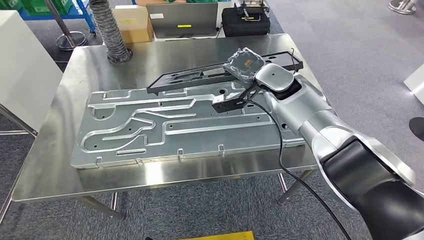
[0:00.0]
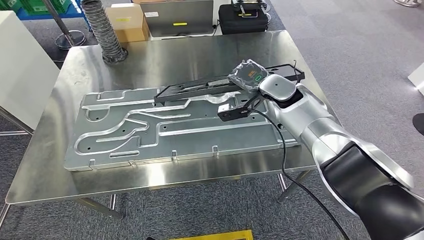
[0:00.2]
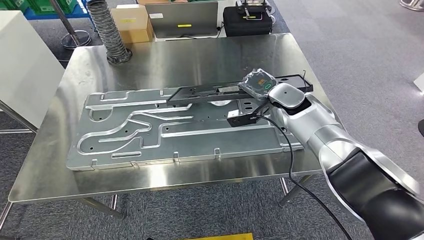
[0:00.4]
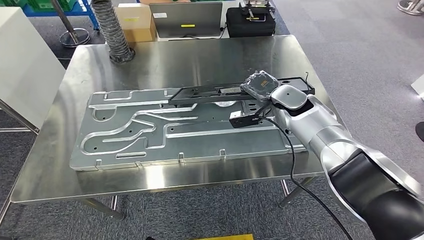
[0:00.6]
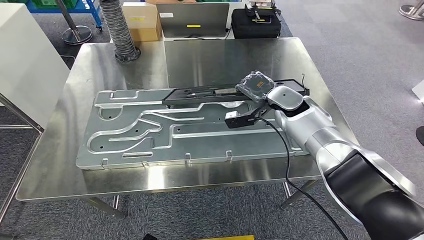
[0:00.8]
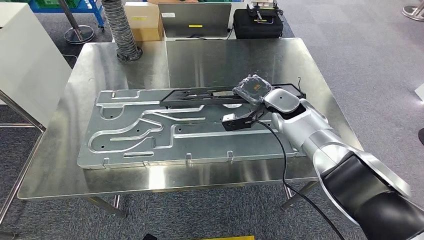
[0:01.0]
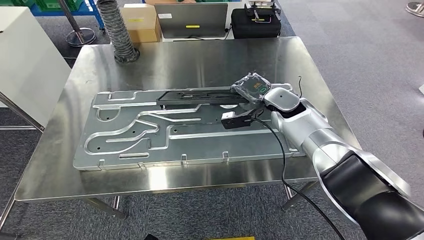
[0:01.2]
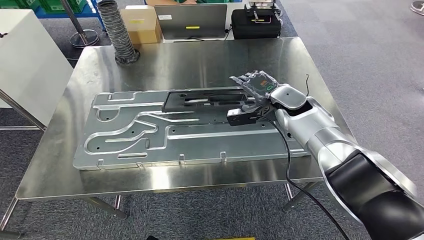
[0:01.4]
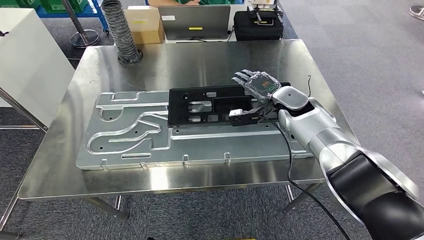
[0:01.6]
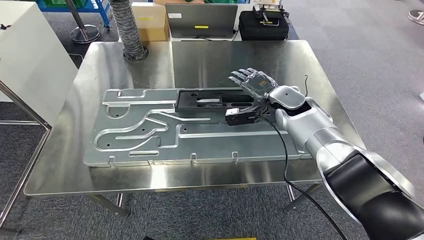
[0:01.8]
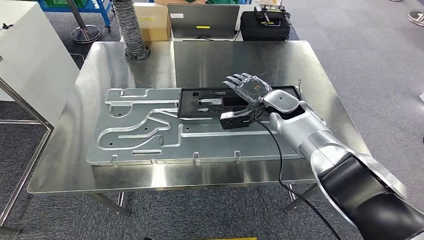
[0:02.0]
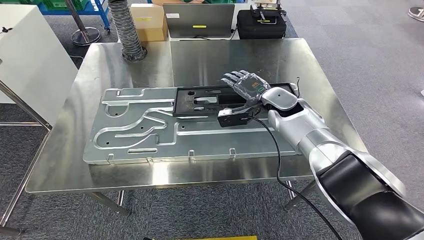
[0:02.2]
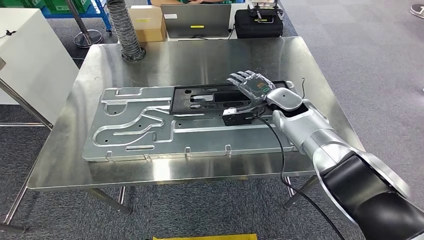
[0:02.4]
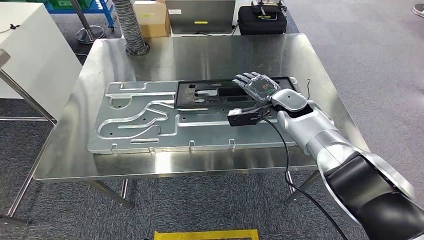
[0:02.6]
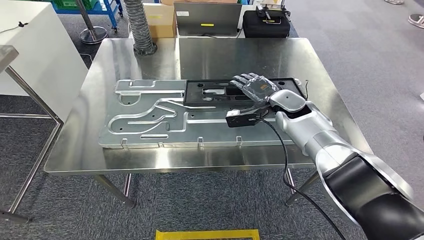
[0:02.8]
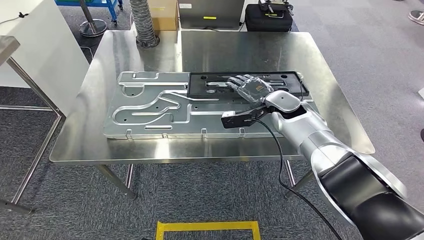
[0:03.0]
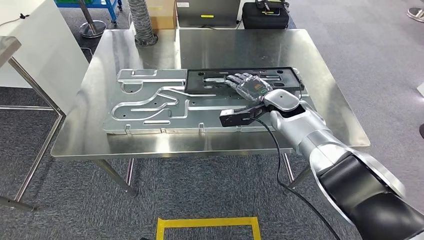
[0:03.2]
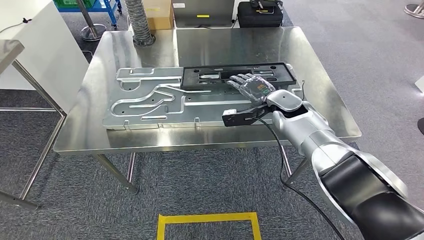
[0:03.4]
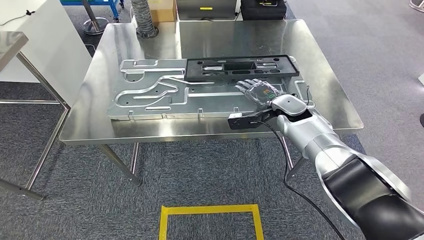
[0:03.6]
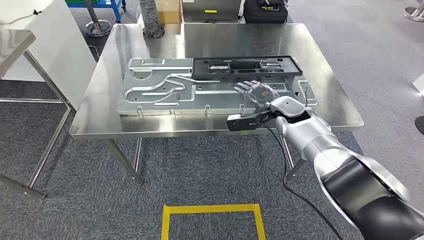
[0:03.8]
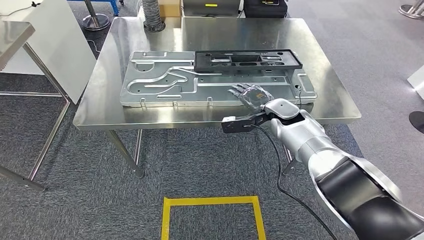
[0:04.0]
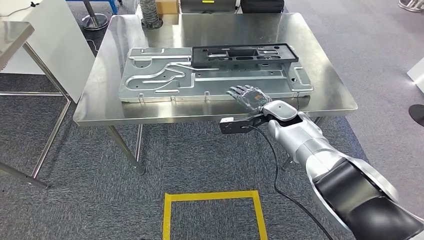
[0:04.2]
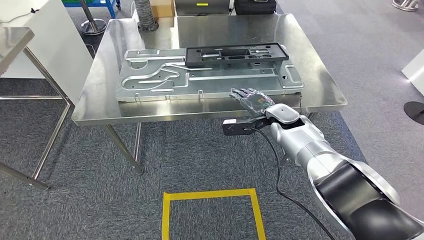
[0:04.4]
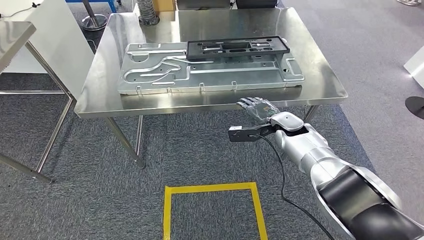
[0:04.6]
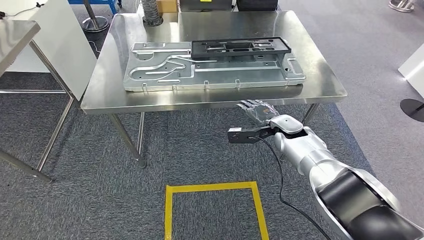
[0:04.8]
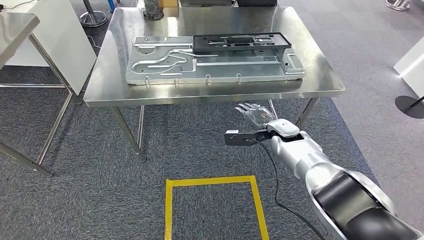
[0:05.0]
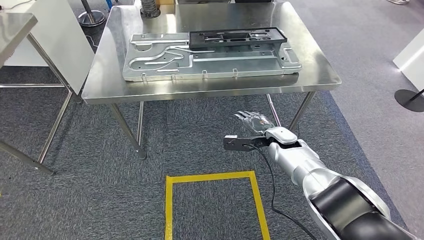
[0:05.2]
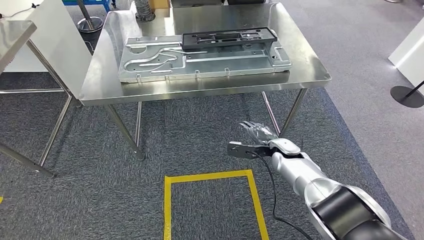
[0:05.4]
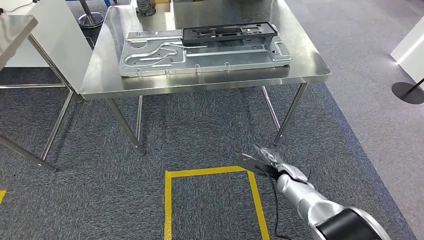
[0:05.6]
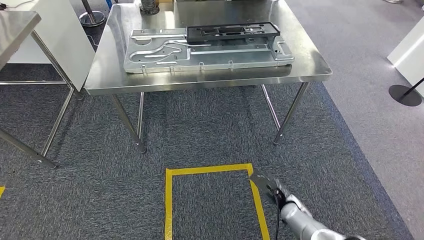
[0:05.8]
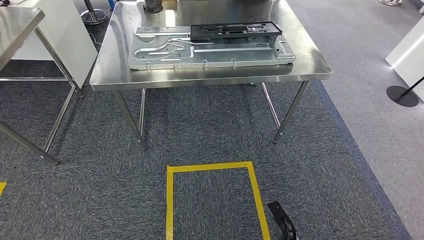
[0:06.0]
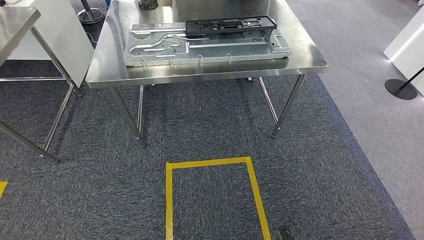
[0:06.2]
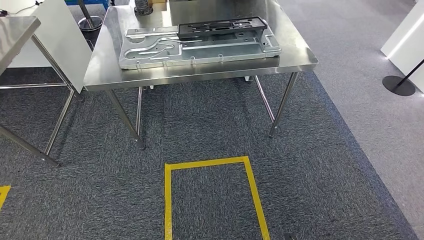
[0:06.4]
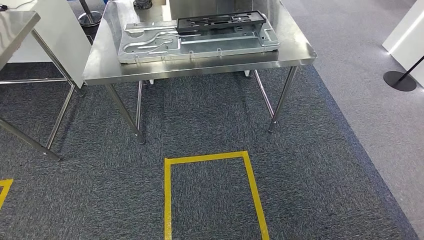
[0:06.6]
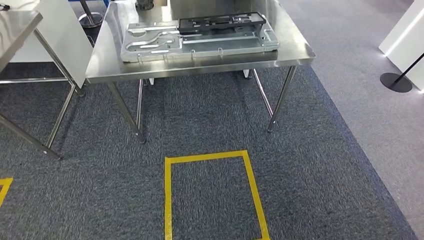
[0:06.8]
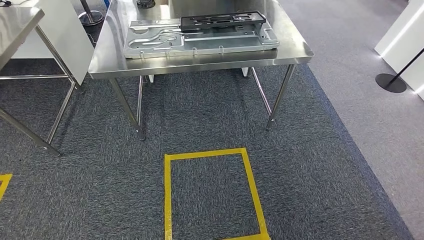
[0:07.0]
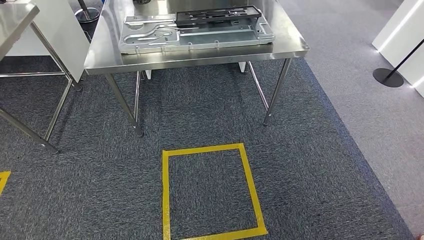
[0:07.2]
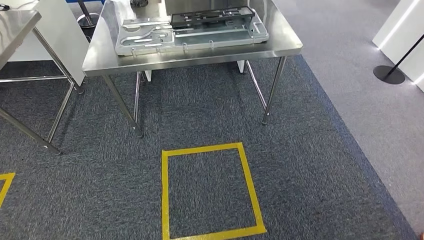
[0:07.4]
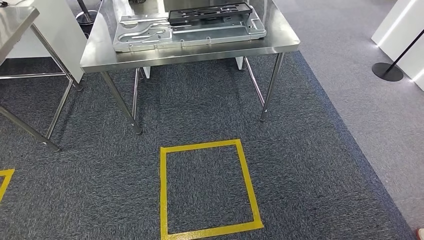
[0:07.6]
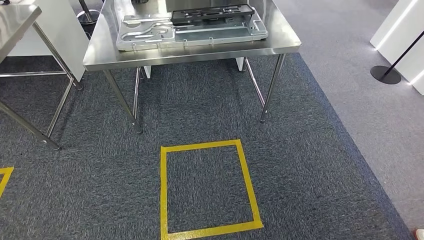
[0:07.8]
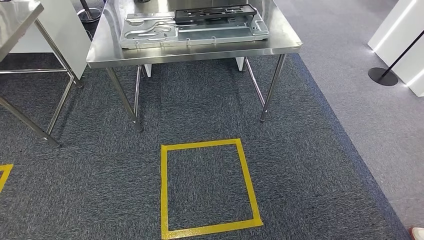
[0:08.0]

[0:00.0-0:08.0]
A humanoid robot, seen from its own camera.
Step, 0:00.0 to 0:05.6: Insert the large material into the corresponding hole on the workbench.
Step, 0:06.4 to 0:08.0: Move to the initial position of the shelf.
